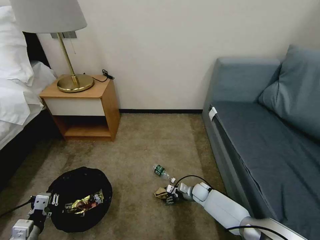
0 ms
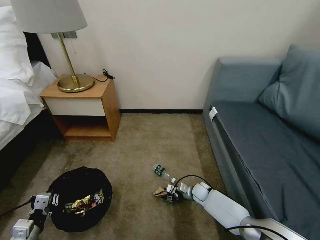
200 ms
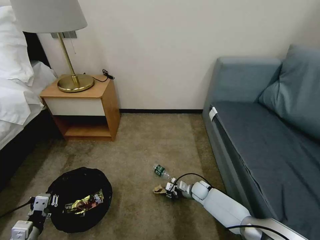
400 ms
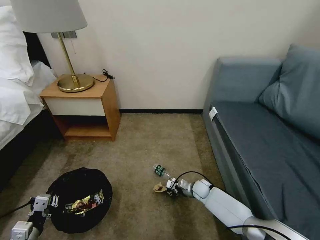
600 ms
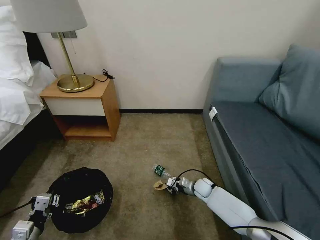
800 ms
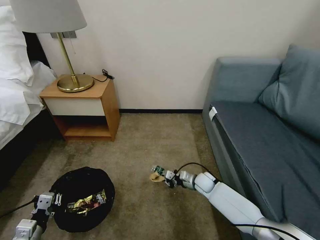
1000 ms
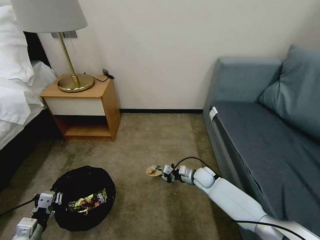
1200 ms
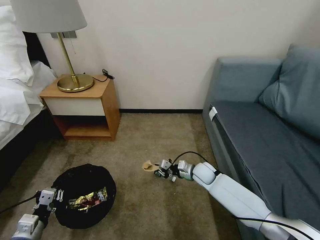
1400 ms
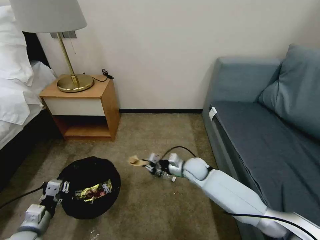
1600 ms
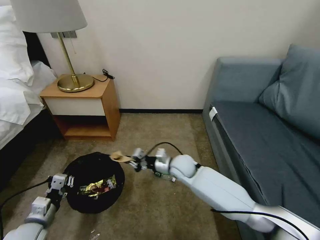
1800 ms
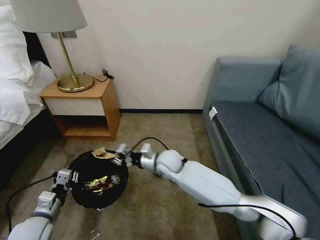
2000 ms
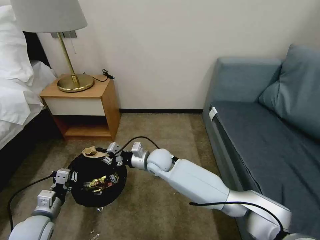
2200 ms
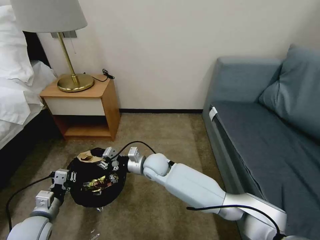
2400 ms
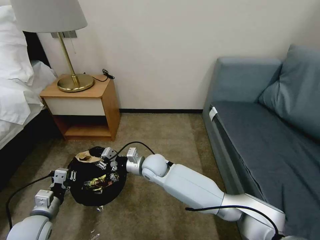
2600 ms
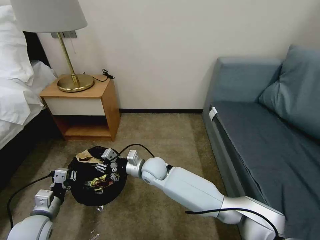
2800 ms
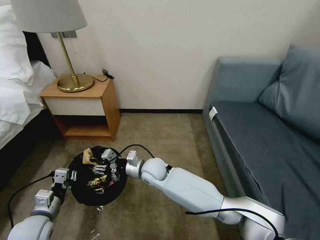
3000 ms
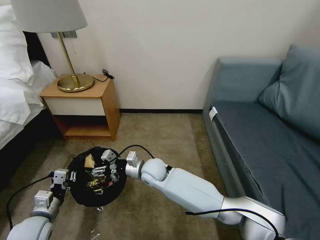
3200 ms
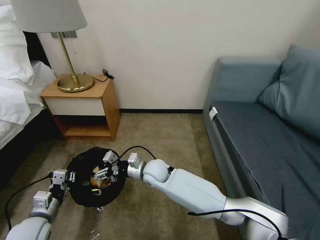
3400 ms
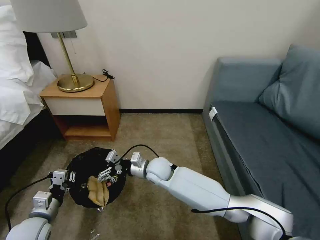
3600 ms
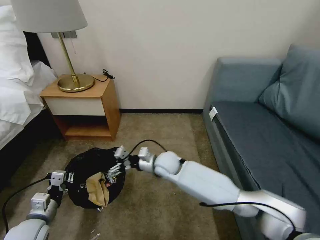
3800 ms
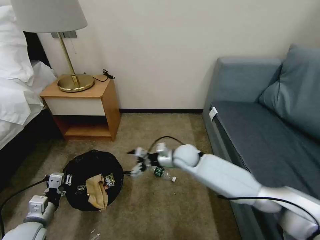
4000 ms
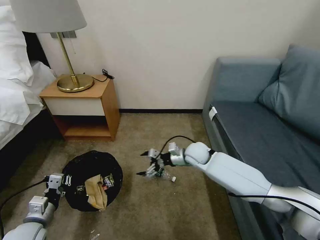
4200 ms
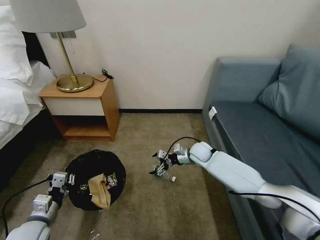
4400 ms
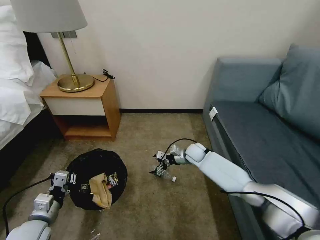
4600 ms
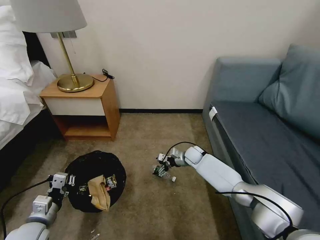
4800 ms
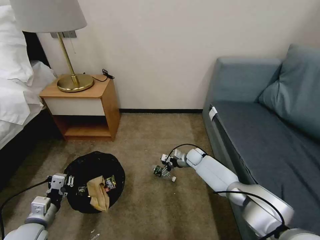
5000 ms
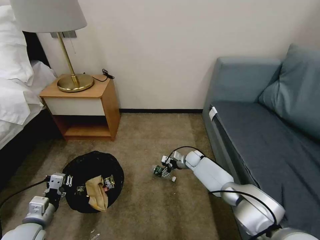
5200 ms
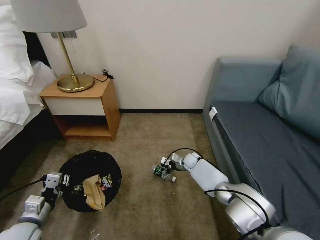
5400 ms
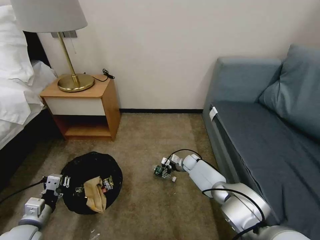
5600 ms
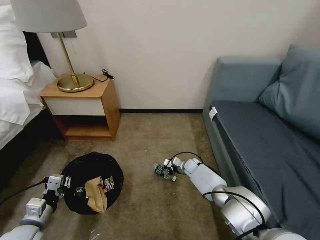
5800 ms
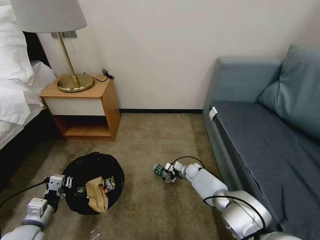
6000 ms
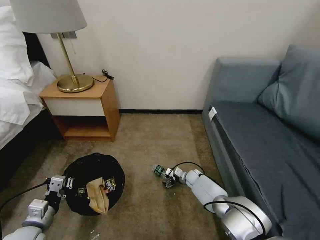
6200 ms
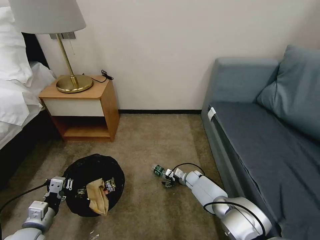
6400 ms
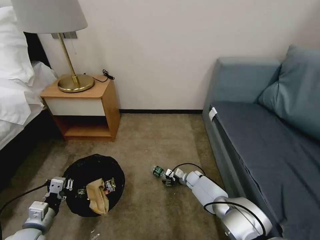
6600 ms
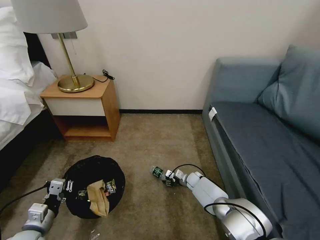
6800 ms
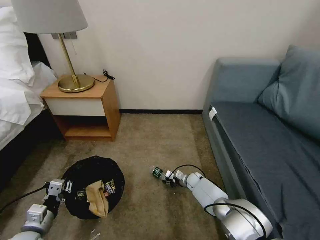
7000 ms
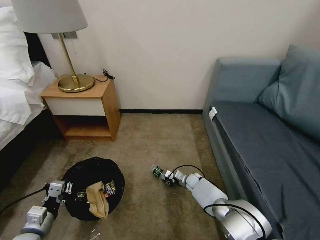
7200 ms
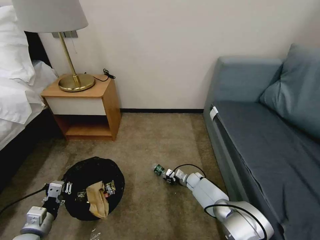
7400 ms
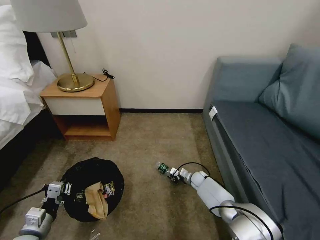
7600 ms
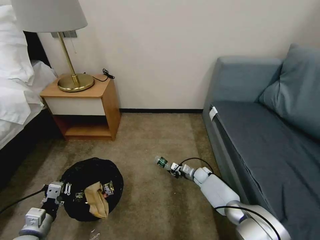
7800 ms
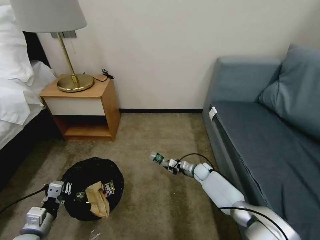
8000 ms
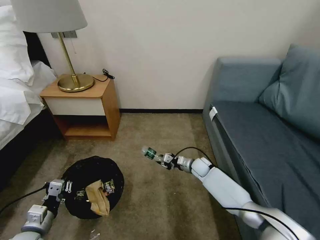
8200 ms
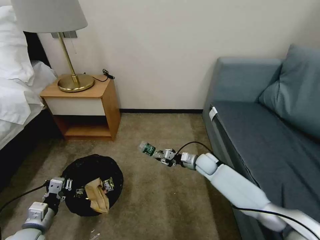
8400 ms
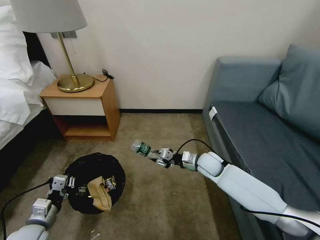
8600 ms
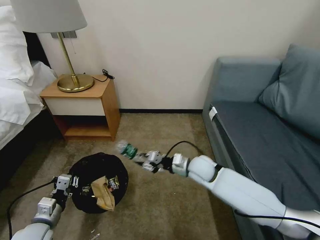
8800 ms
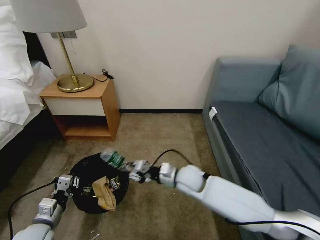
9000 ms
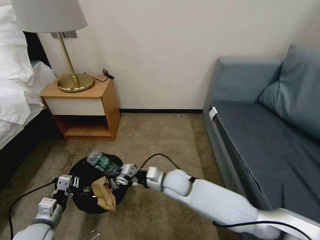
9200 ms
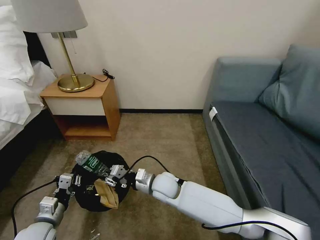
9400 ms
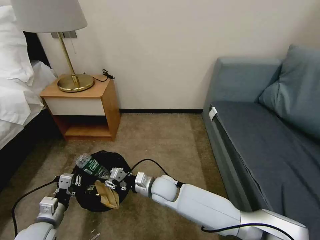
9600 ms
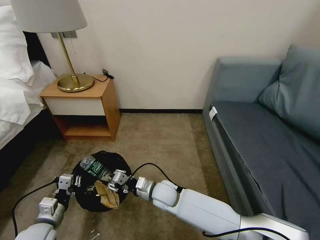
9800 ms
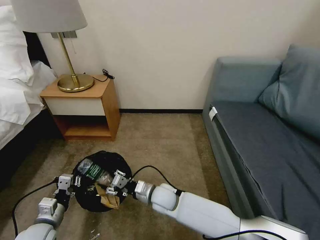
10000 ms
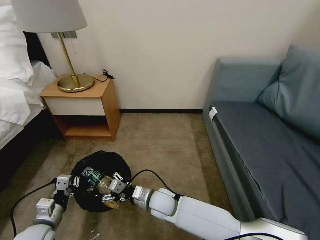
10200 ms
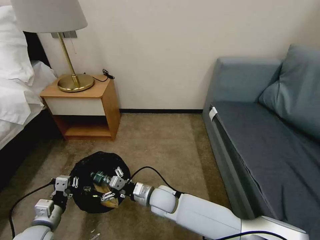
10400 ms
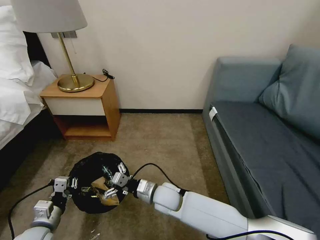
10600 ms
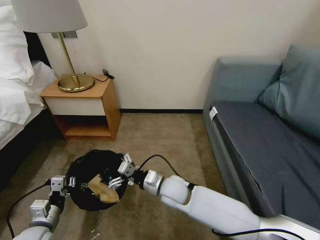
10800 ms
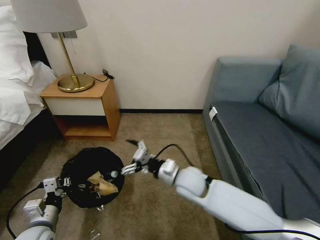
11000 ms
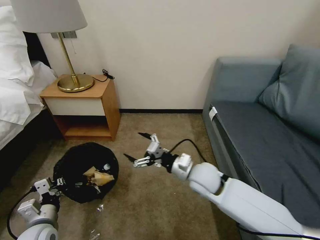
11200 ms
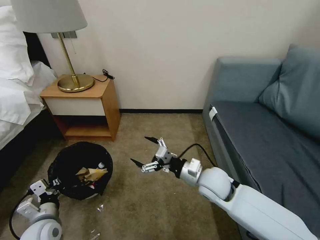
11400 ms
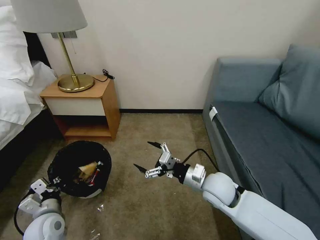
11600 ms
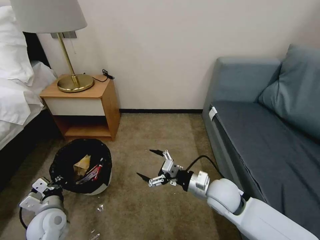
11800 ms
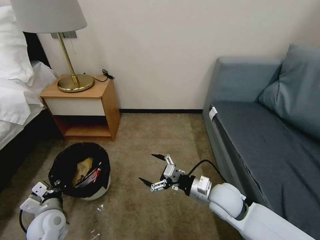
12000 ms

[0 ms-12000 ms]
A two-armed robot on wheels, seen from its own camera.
Task of the whole recording: Pick up the trash bin, then pick up the garbage on the floor and place it into the trash bin.
0 ms to 1600 ms: The right gripper moves upward, roughly 20 cm, and closes up.
1600 ms to 3000 ms: The right gripper travels to the left by roughly 20 cm, and opens its fingers.
3000 ms to 4400 ms: The right gripper goes approximately 25 cm to the right and forward, and opens.
4400 ms to 6000 ms: The right gripper moves downward, some 15 cm.
6000 ms to 7600 ms: The right gripper ends up approximately 5 cm from where it was, and closes.
7600 ms to 9000 ms: The right gripper moves upward, to the left and backward, approximately 25 cm.
9000 ms to 10400 ms: The right gripper heads to the left, backward and downward, covering roughly 15 cm, and opens its fingers.
10400 ms to 12000 ms: The right gripper is displaced to the right and upward by roughly 20 cm.

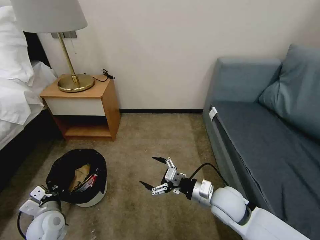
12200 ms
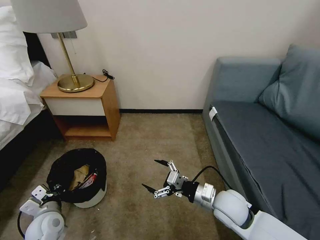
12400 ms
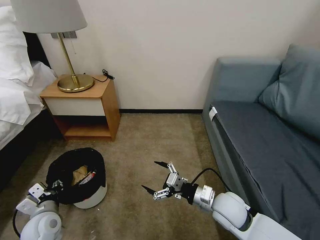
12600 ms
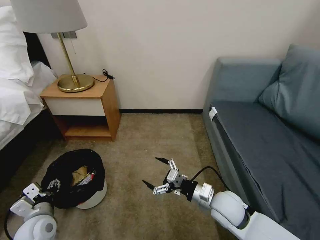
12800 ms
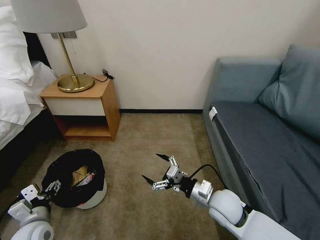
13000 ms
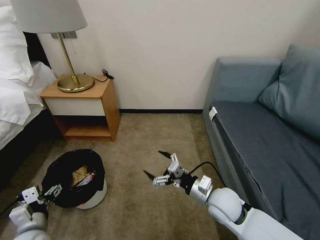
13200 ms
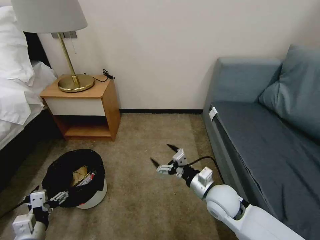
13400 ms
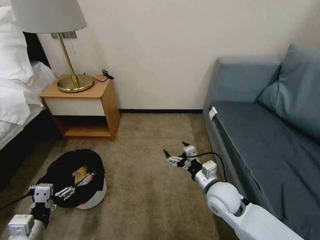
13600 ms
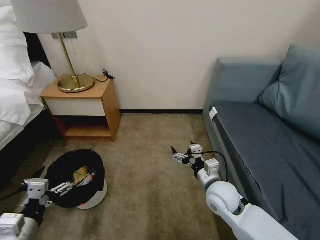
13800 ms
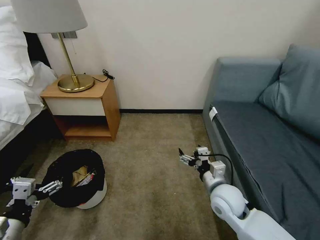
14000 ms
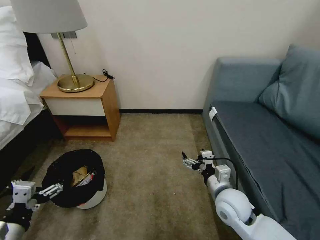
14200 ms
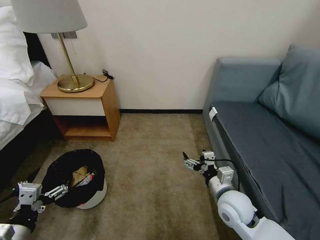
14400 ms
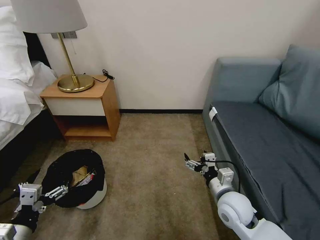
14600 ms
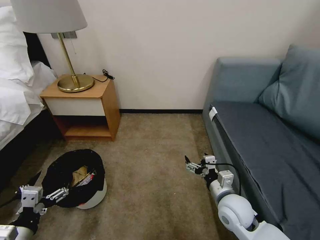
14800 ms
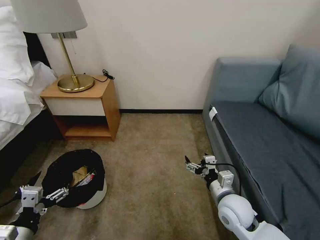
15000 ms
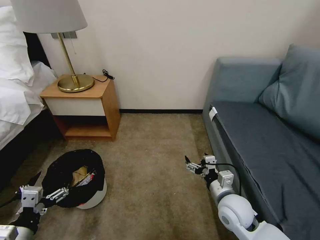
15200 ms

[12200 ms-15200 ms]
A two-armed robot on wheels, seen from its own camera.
Task of the whole recording: Pick up the trash bin, then pick up the garbage on the floor and place it into the trash bin.
12200 ms to 13800 ms: The left gripper heads upward and backward, covering approximately 15 cm, and opens up.
13800 ms to 15200 ms: The right gripper shifts by approximately 5 cm.

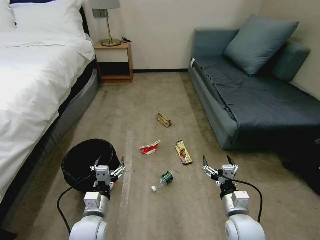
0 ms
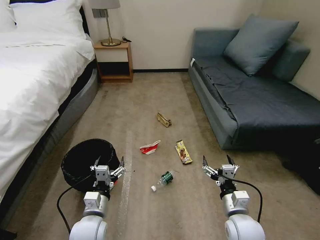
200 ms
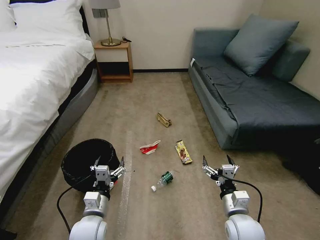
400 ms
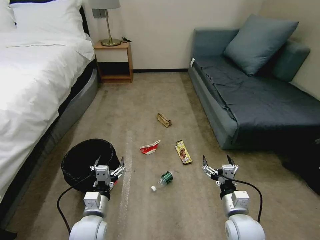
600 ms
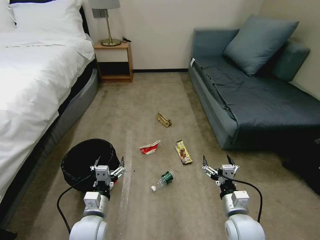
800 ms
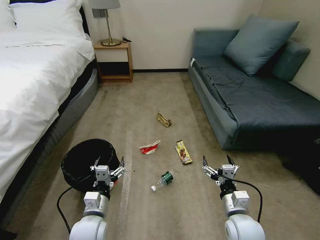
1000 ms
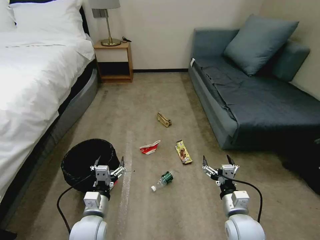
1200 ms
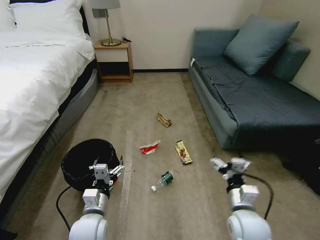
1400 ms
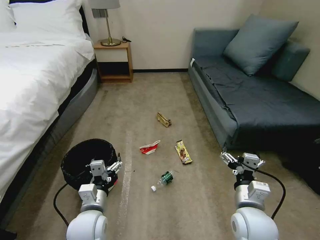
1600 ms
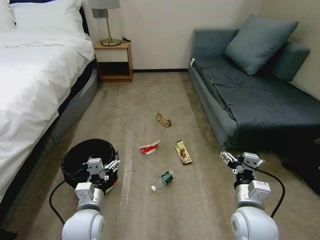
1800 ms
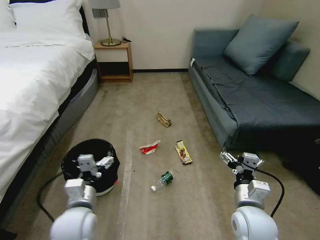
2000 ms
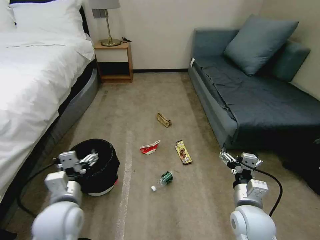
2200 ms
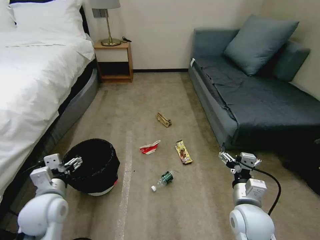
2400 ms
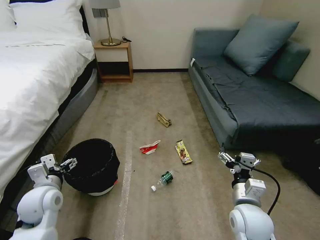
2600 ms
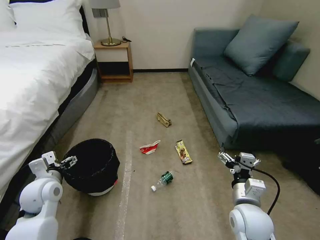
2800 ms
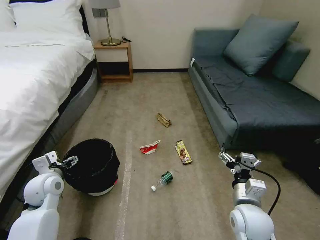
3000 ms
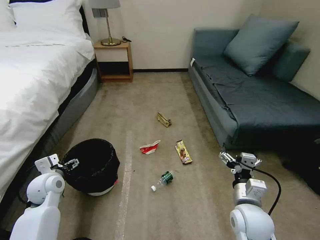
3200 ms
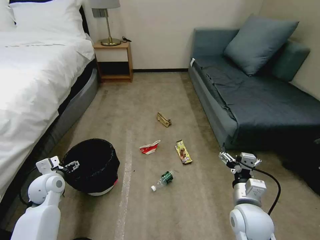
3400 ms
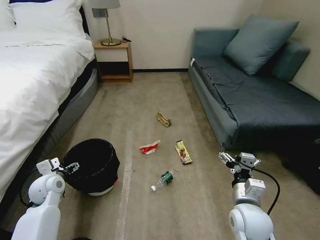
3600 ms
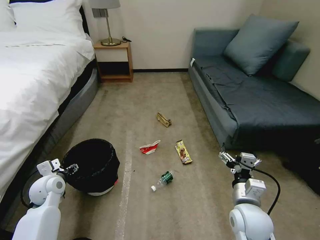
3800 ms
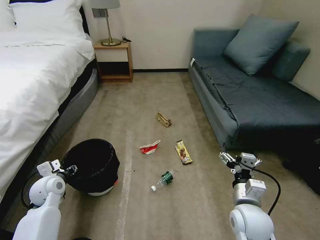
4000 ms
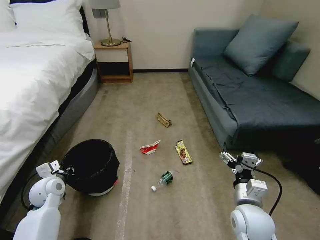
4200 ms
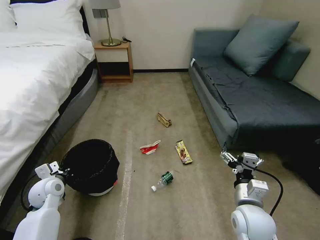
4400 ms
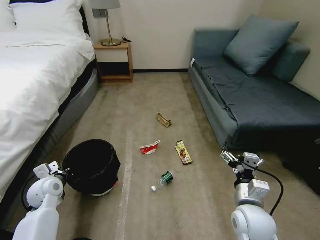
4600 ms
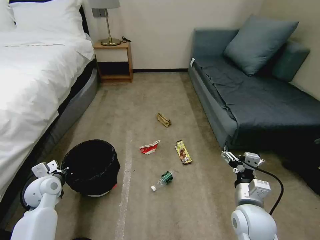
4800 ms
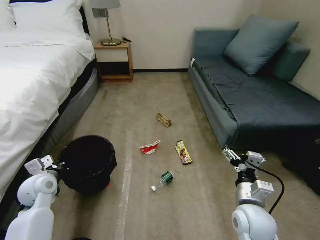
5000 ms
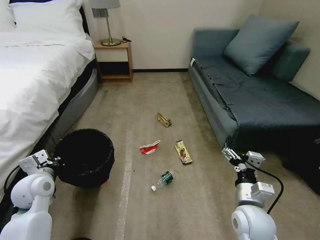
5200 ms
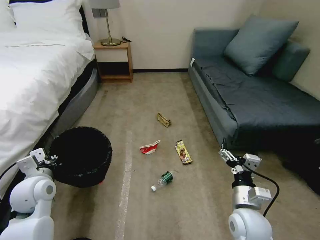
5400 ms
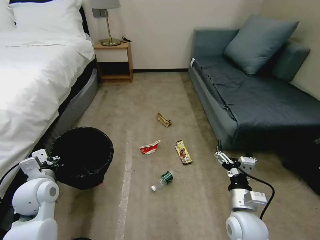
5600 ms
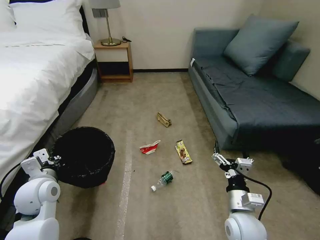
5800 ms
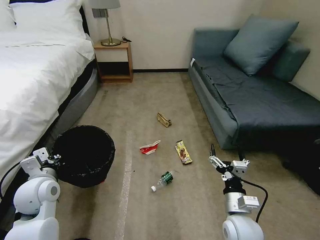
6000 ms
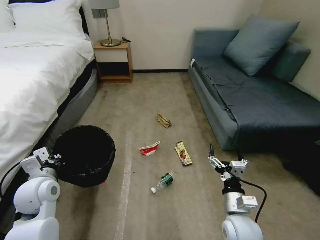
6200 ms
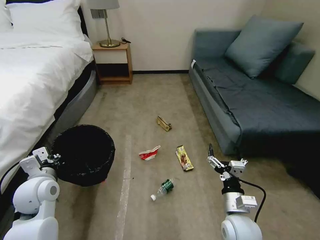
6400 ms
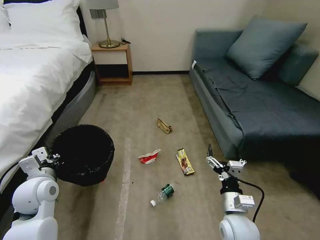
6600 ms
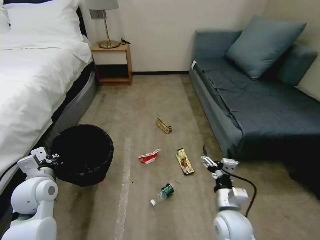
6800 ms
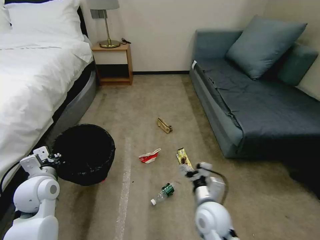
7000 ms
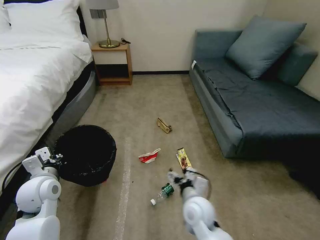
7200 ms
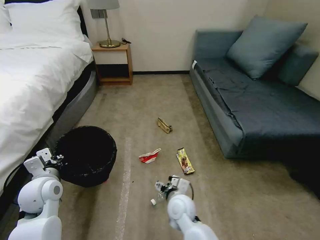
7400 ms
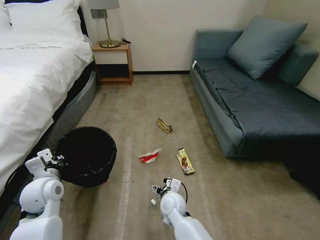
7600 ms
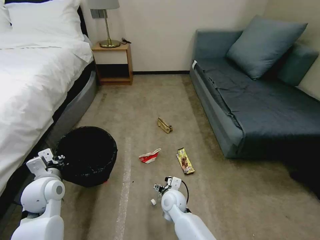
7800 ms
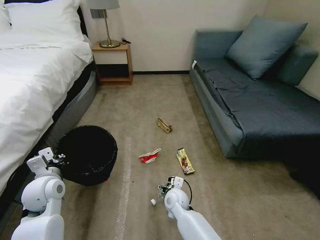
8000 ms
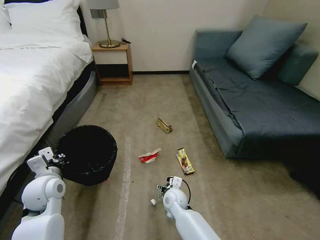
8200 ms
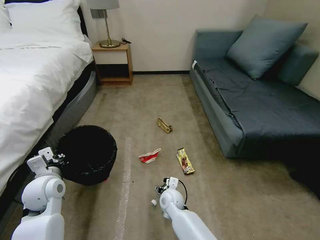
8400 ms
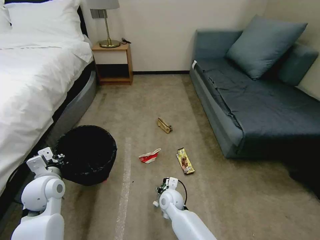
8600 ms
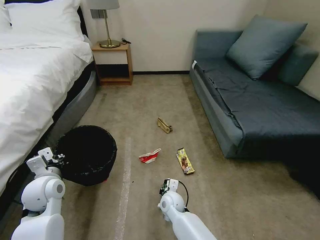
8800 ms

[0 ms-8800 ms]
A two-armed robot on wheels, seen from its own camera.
Task of the whole recording: Pick up the trash bin, then pick up the garbage on the floor and place it into the trash bin.
1400 ms to 3000 ms: The left gripper moves to the left, forward and upward, approximately 20 cm.
3000 ms to 4400 ms: The left gripper shifts by approximately 5 cm, and closes up.
4400 ms to 5800 ms: The left gripper shifts some 10 cm upward.
5800 ms to 7400 ms: The right gripper shifts about 20 cm to the left and forward.
7400 ms to 8800 ms: The right gripper heads downward, covering approximately 10 cm, and closes up.
